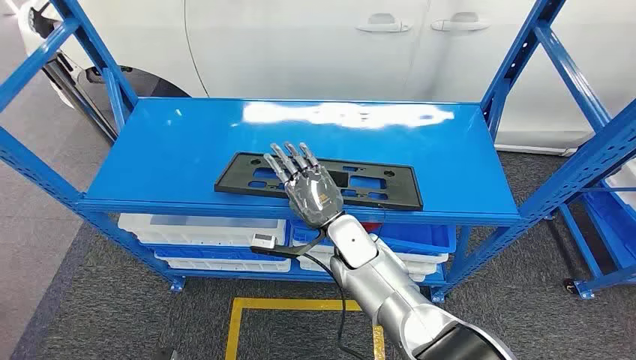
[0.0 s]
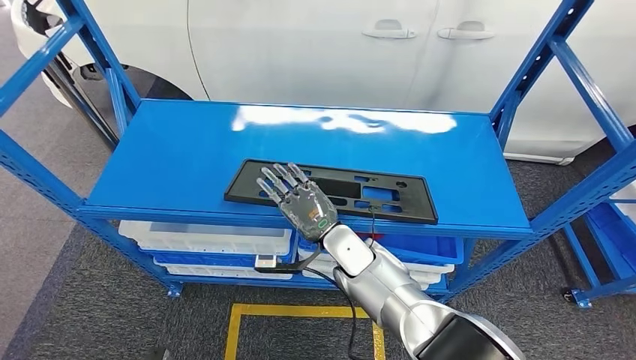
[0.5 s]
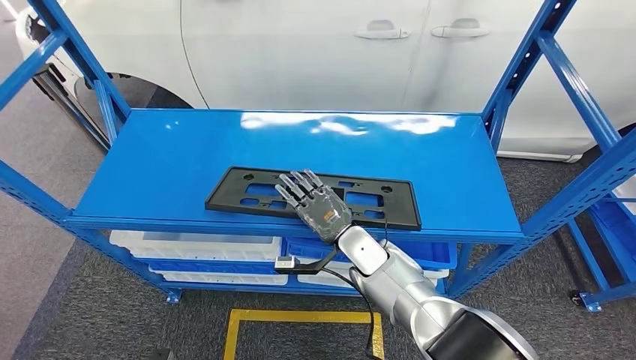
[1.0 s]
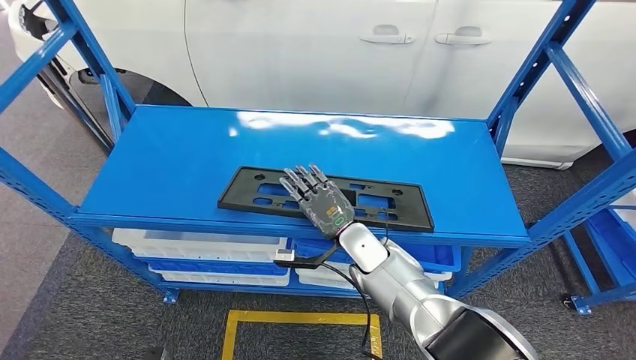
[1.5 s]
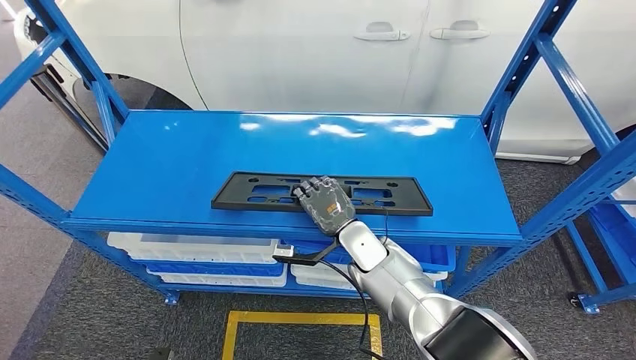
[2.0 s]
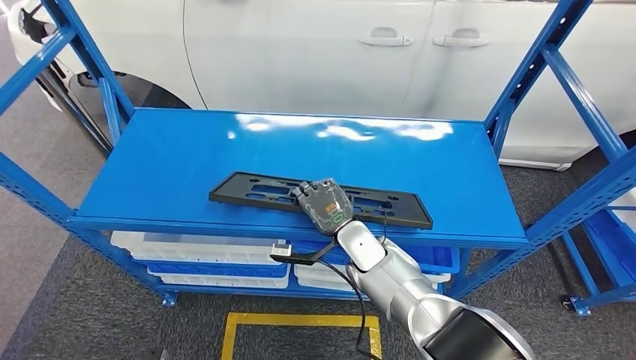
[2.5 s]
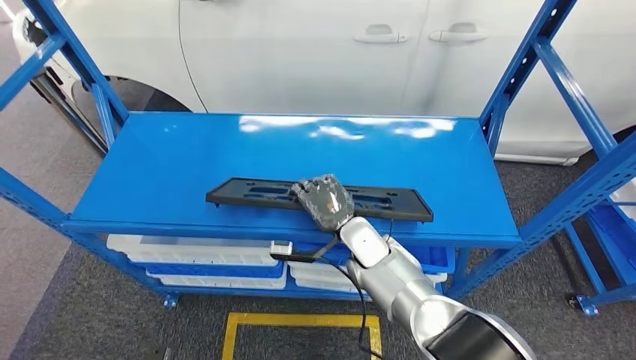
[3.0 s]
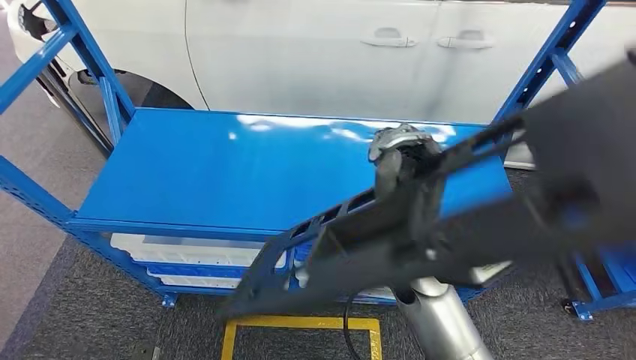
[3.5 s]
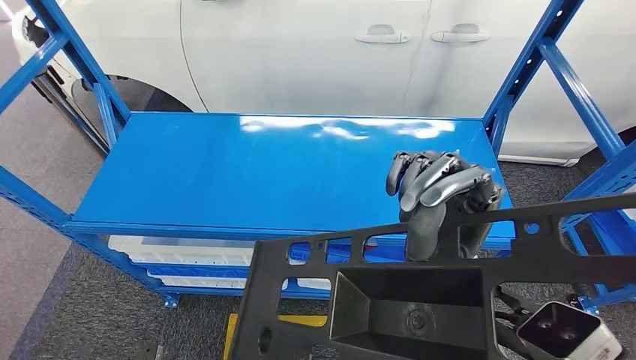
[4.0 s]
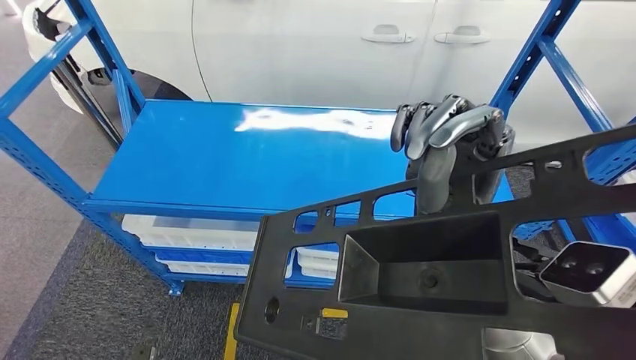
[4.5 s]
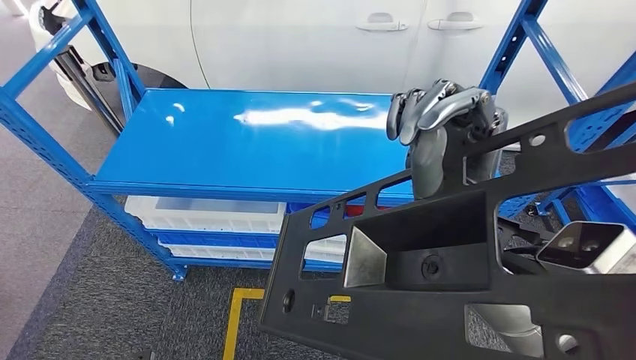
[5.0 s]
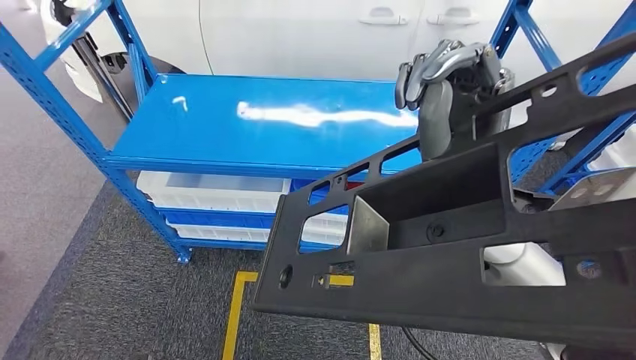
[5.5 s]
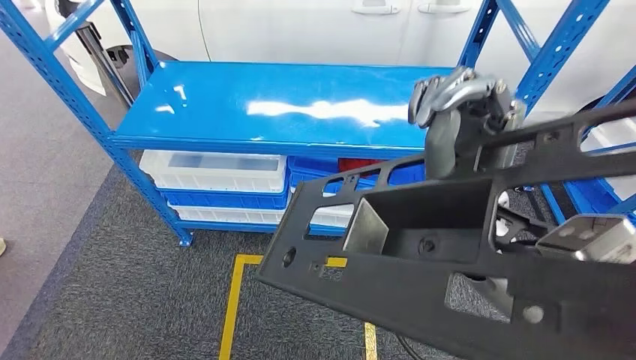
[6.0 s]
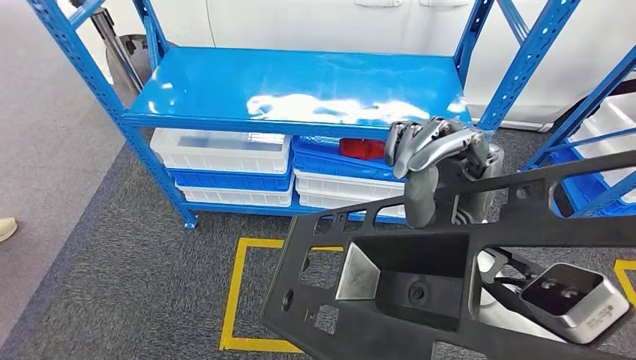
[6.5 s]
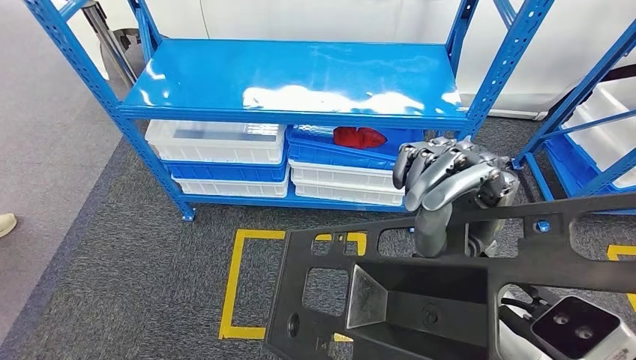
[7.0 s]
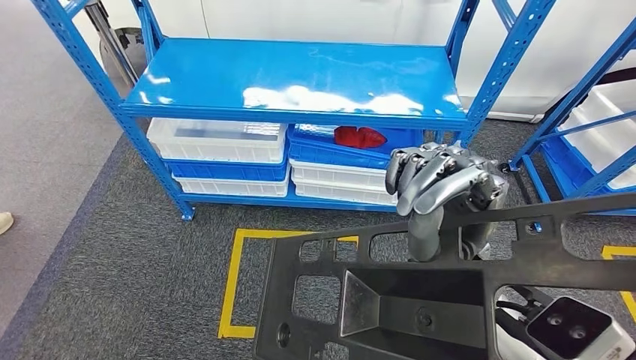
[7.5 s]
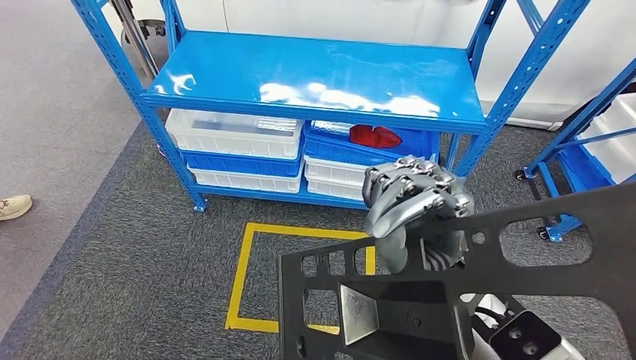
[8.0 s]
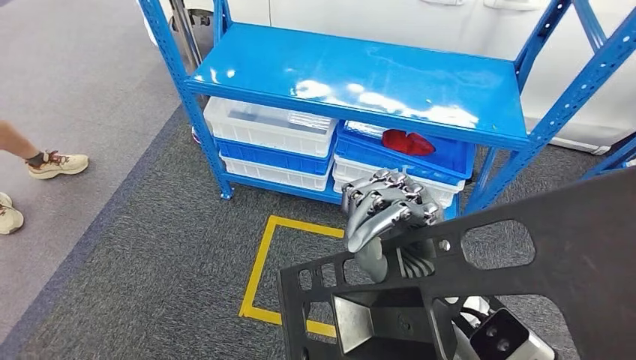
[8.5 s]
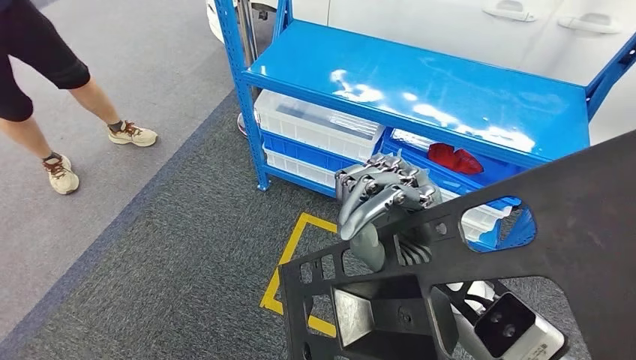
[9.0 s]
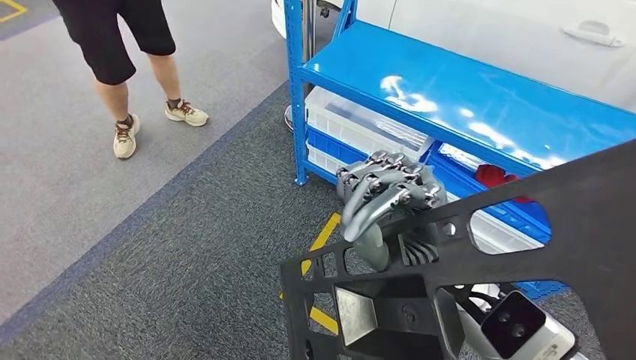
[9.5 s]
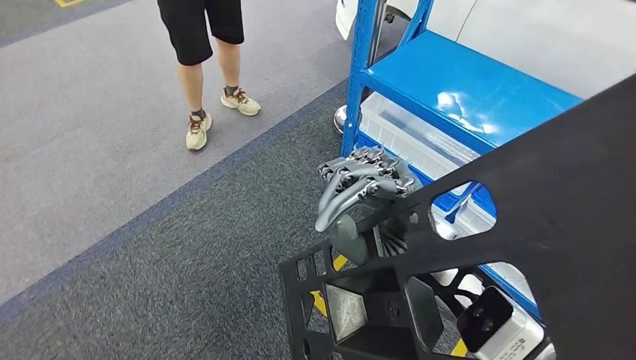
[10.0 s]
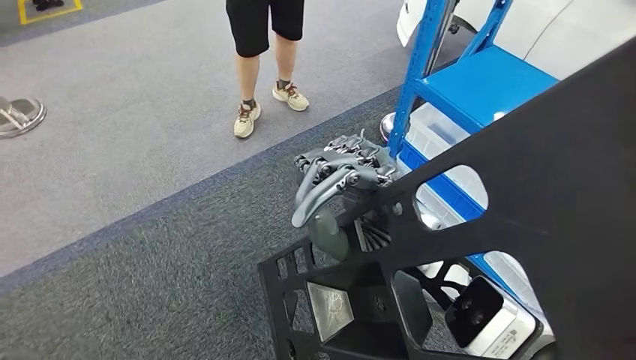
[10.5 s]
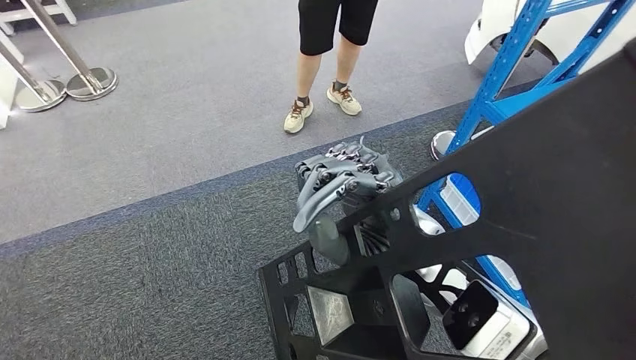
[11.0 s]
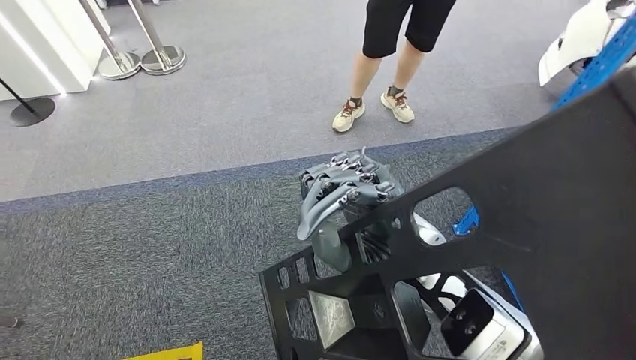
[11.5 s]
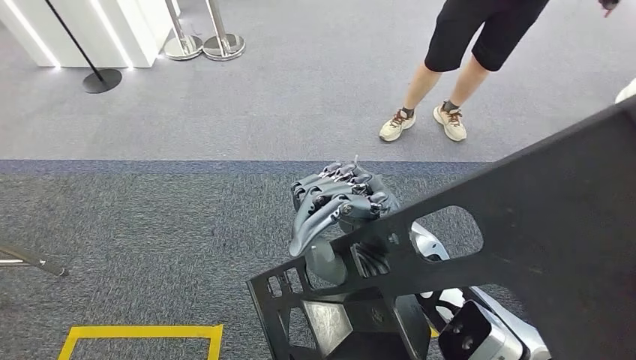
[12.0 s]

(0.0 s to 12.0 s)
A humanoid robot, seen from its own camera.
Step, 0.0 s - 6.5 s: Pick up the large material from the shelf.

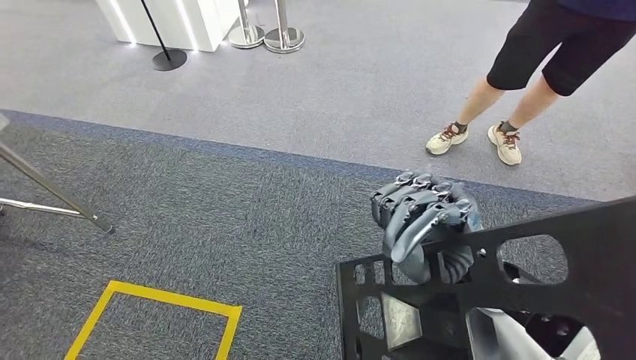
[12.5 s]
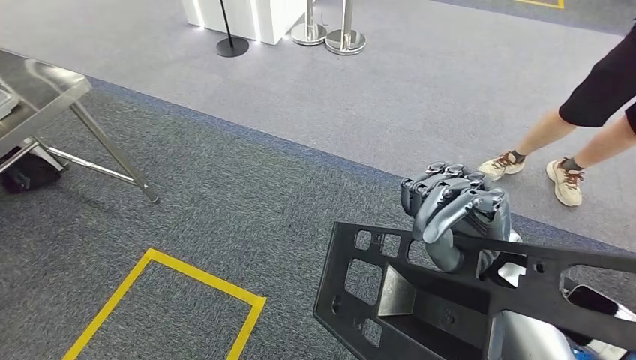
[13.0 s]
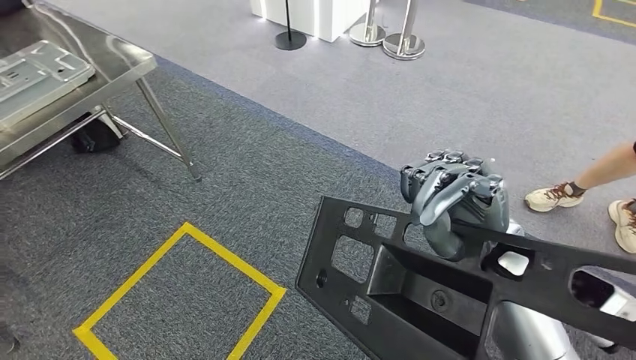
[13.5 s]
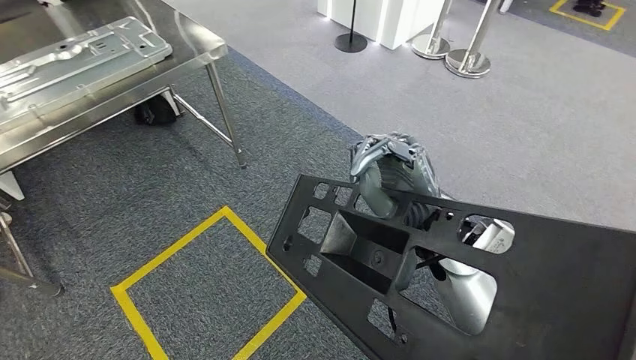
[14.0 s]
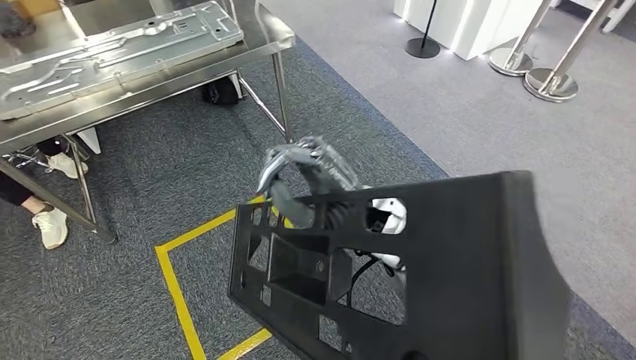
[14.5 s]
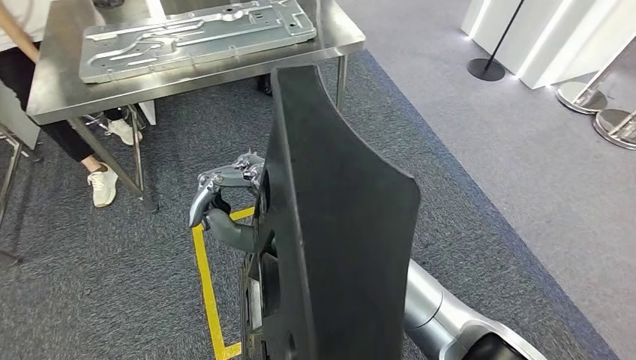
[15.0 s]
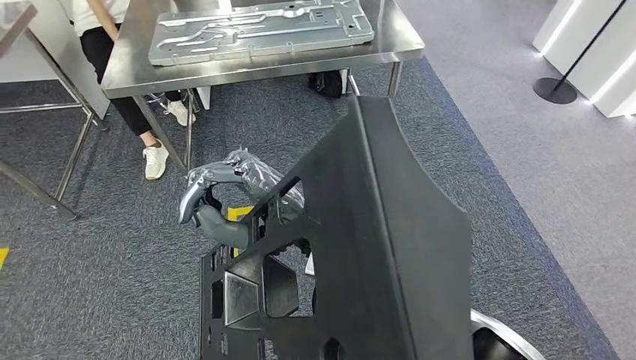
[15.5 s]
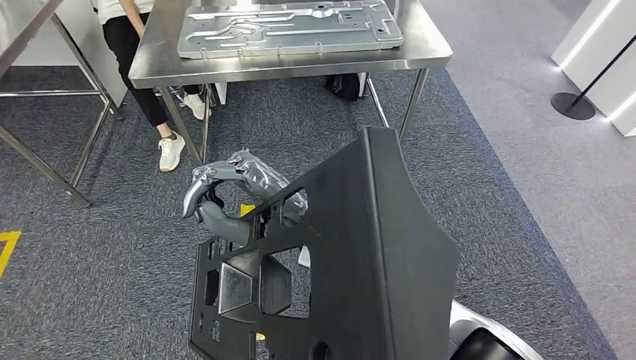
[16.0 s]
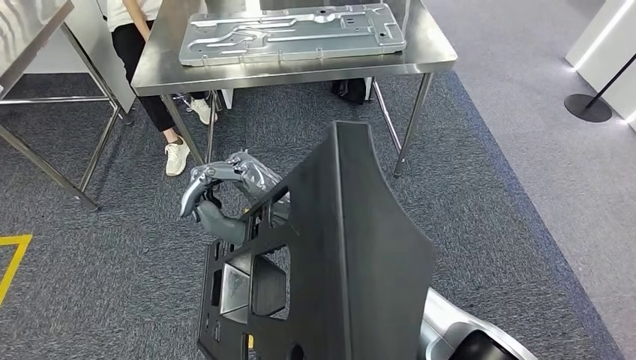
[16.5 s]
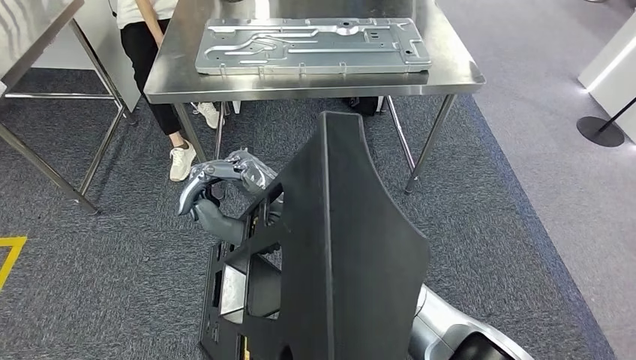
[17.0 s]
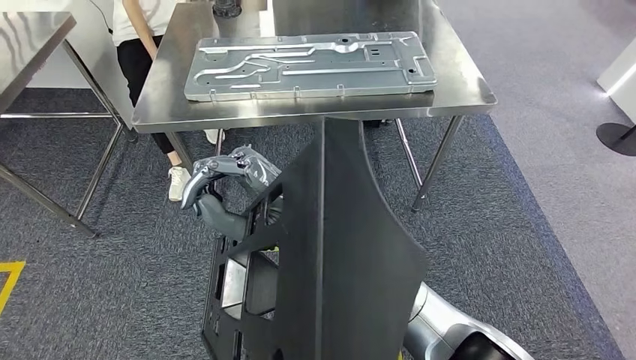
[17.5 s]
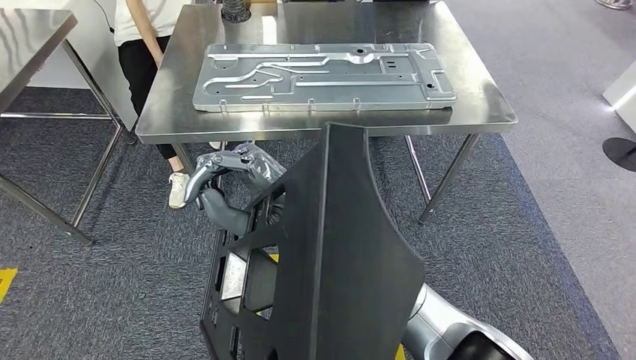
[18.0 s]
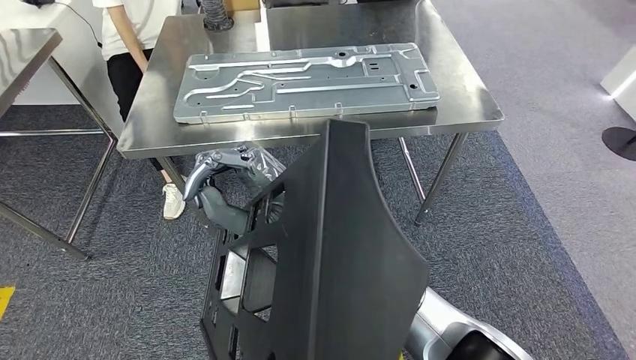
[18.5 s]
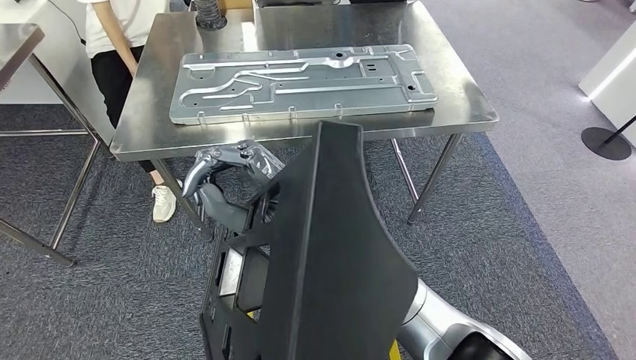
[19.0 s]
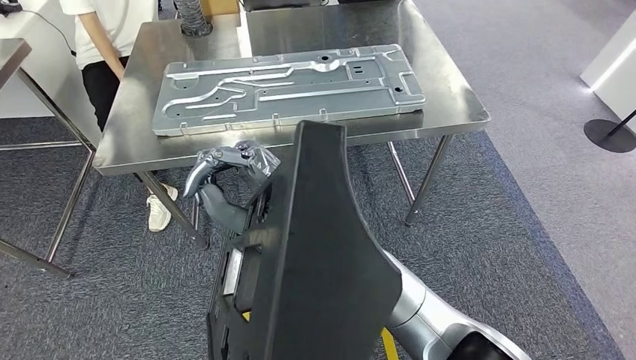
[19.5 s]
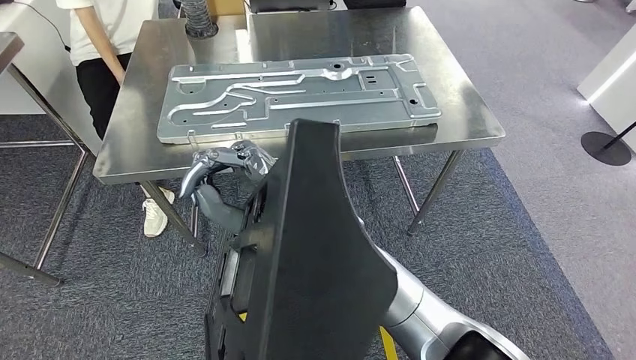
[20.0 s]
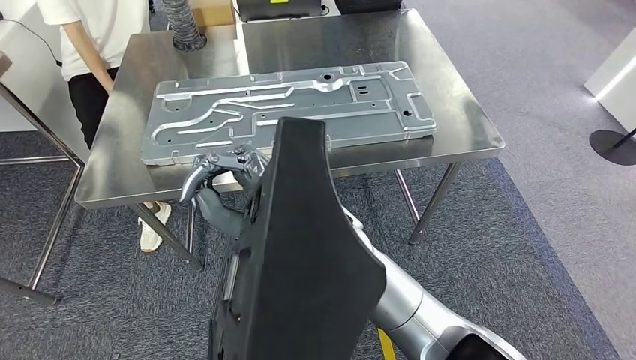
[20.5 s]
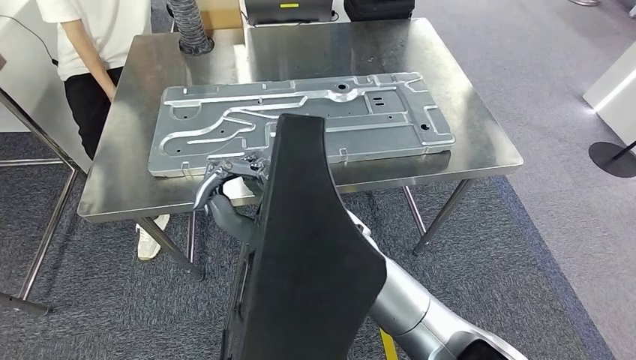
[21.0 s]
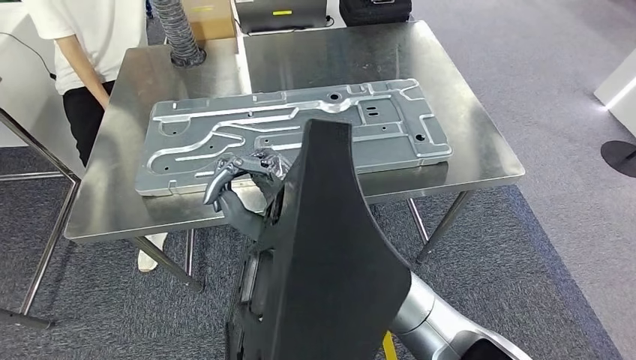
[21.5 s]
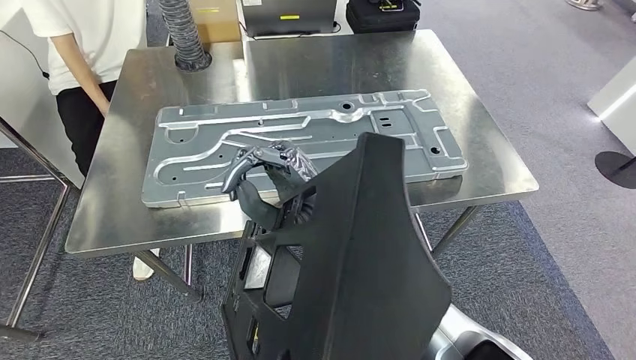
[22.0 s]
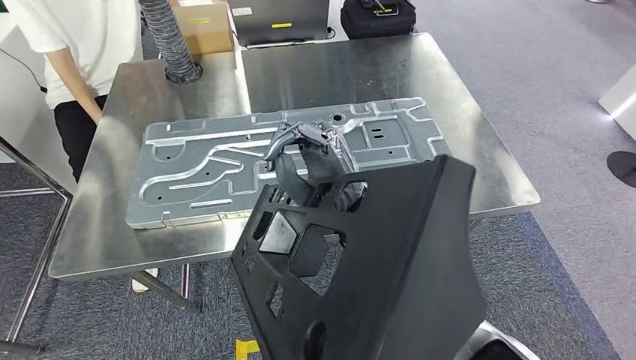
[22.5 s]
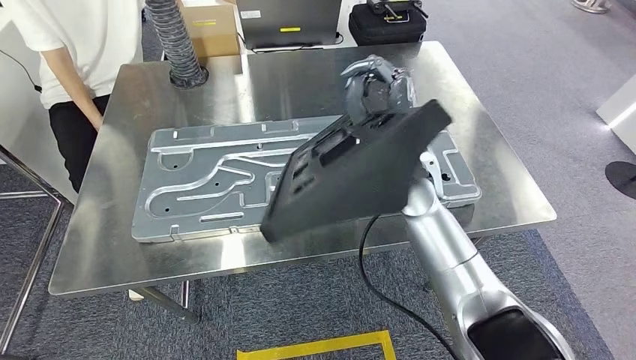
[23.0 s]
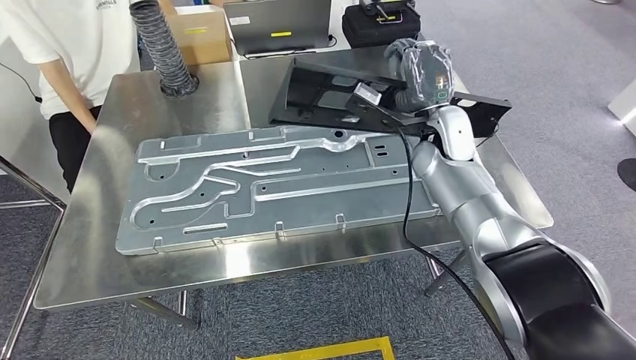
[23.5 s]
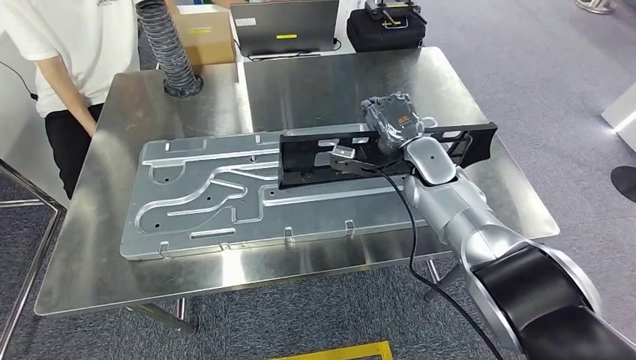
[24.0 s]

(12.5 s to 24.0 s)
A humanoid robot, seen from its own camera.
Step, 12.5 s - 21.5 s: Move the large material to the workbench.
